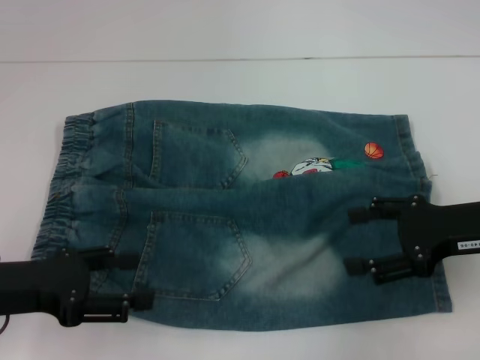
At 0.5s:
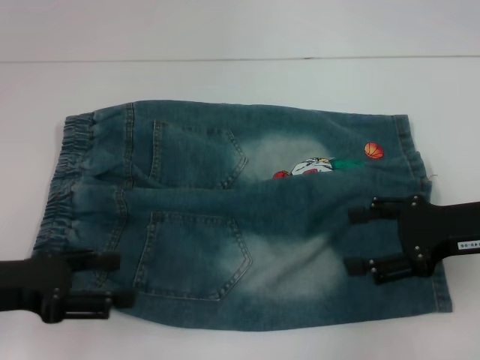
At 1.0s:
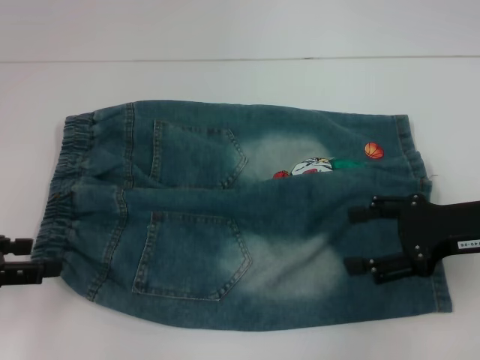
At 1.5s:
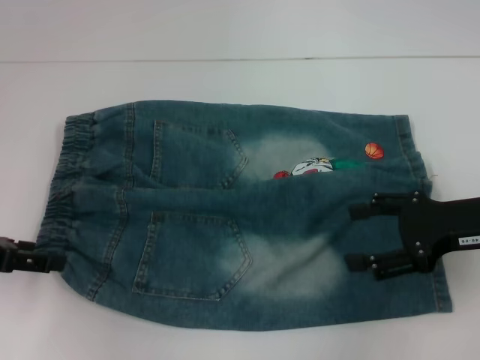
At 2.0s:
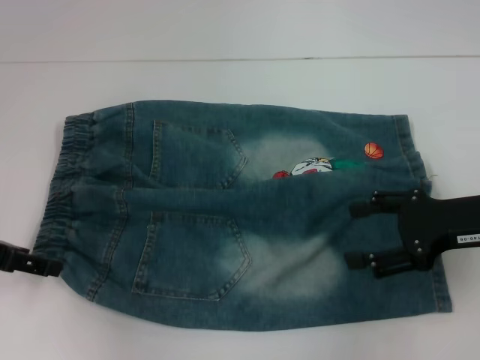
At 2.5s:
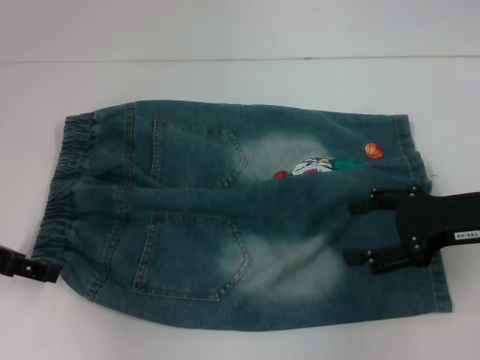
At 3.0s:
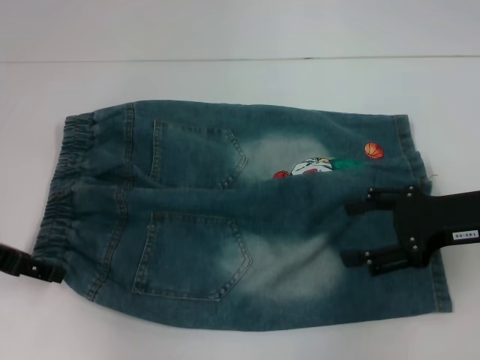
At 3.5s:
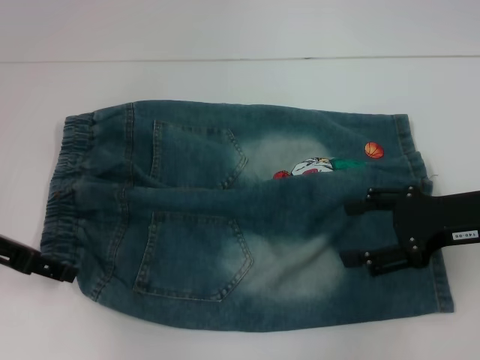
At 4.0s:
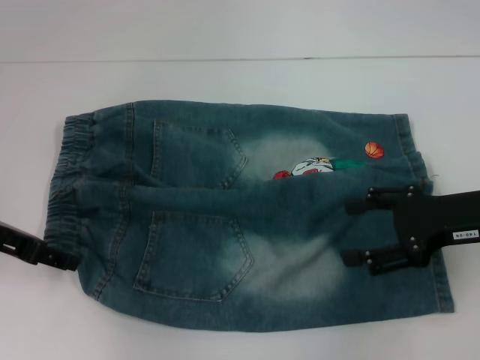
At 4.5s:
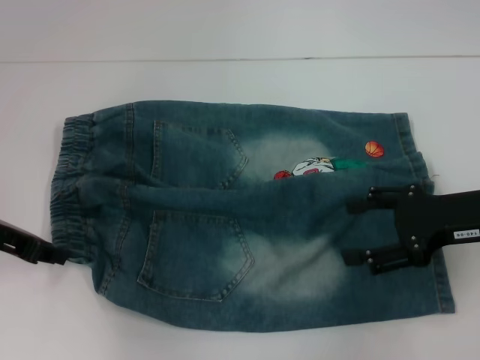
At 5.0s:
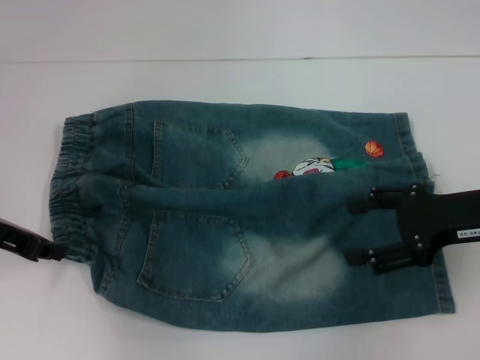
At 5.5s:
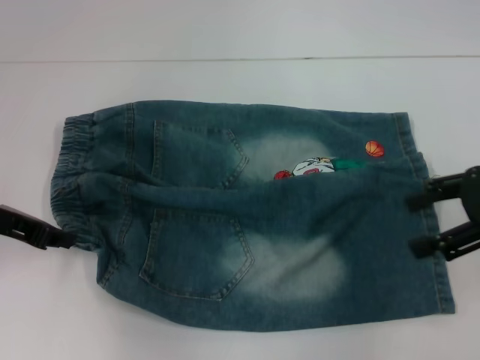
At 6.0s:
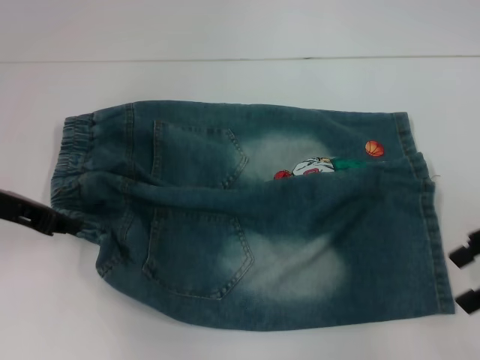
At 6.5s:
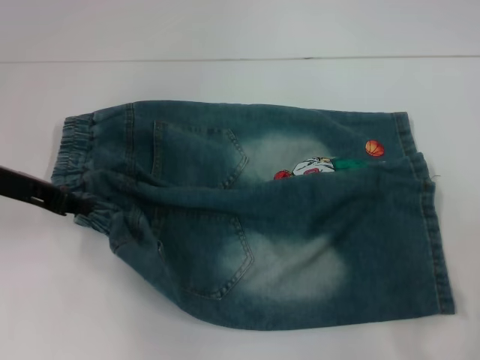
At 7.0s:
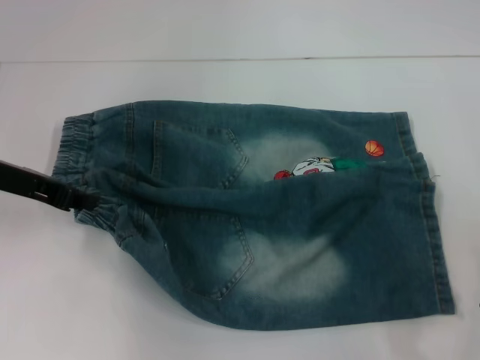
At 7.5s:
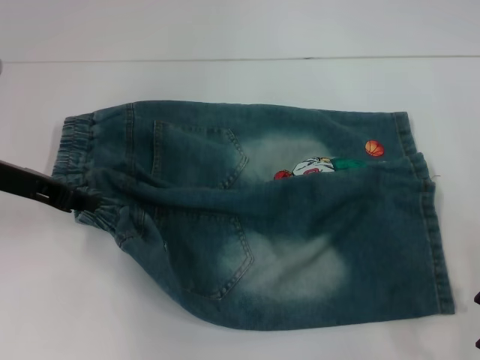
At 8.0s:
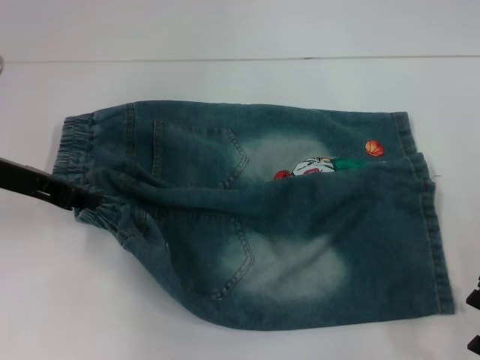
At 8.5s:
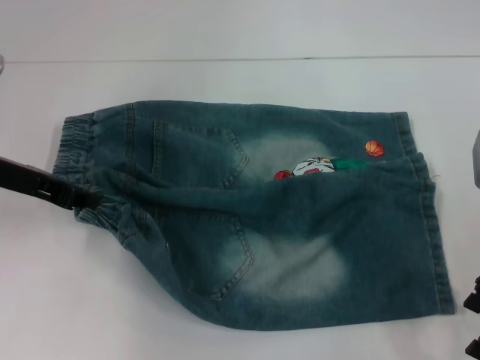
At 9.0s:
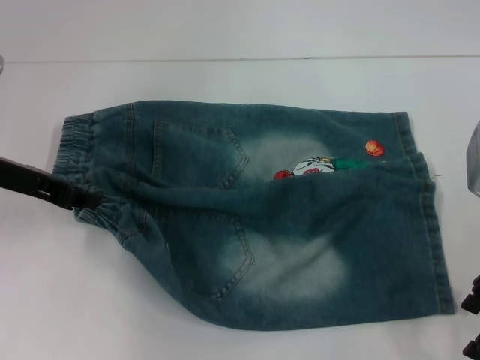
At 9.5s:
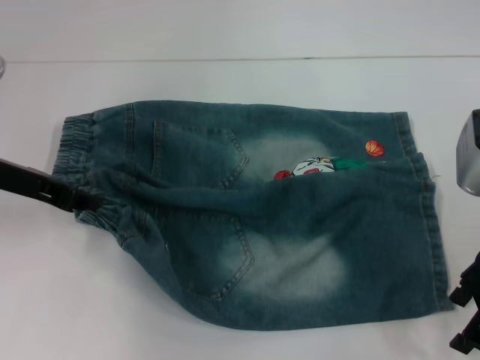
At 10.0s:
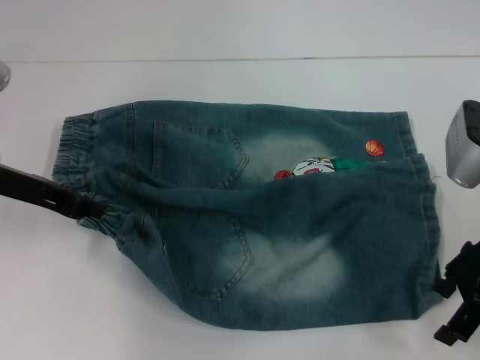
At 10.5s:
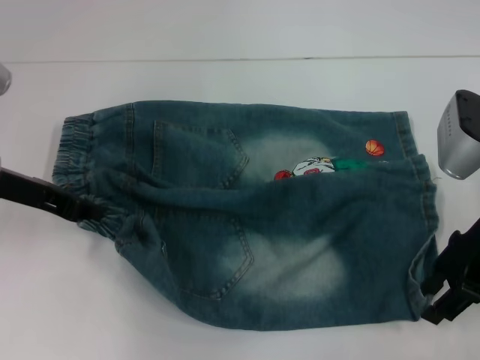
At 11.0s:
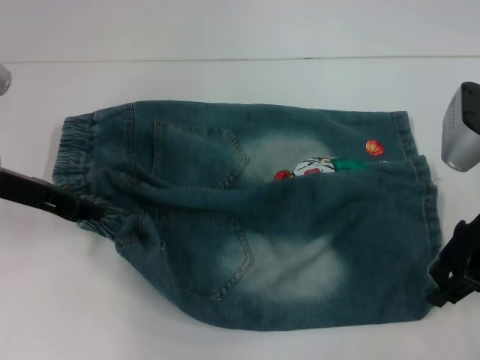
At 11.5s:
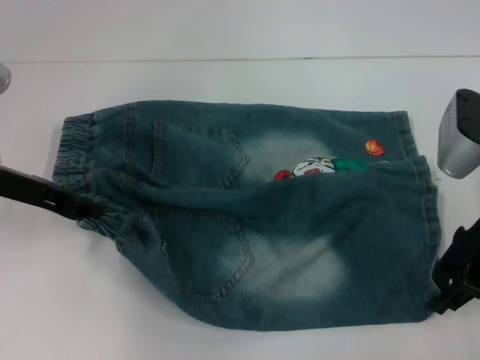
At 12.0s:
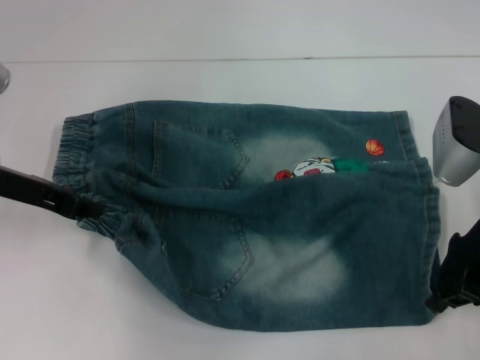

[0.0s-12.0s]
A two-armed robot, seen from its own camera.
Step, 0.0s to 4.5s: Hold the lower left waistband with your left hand.
0.0s to 2.0s: The left gripper is displaced forward by approximately 5 cm.
2.0s to 4.0s: The grippers move only a little.
4.0s to 6.0s: The left gripper closes up, while the right gripper travels upward by approximately 5 cm.
6.0s to 8.0s: The right gripper moves some 5 cm.
8.0s to 10.0s: There are only small adjustments of the grippers.
10.0s to 12.0s: The right gripper closes up.

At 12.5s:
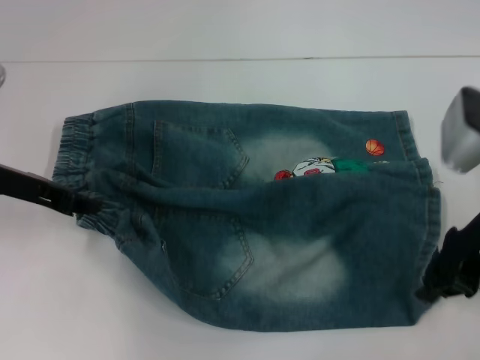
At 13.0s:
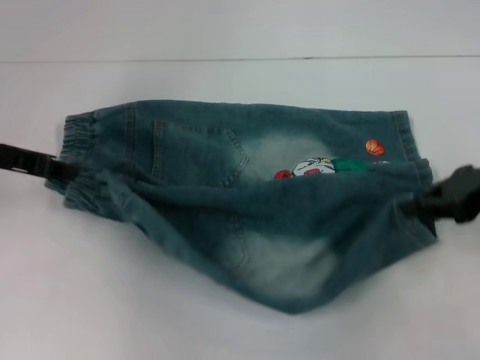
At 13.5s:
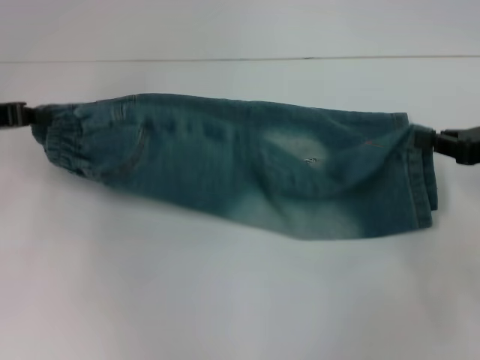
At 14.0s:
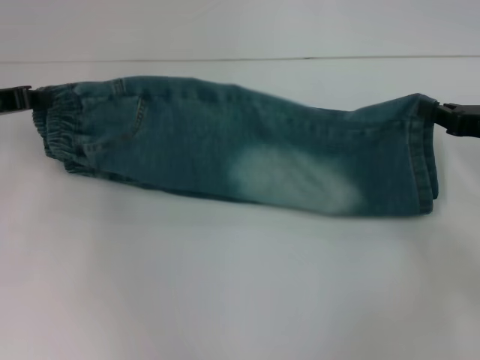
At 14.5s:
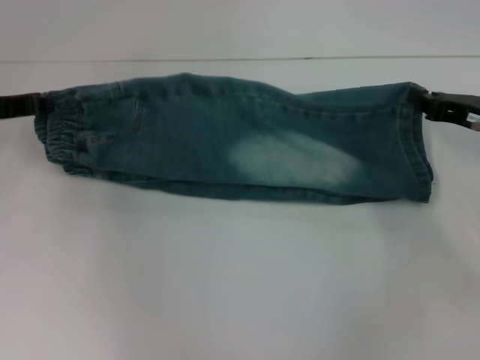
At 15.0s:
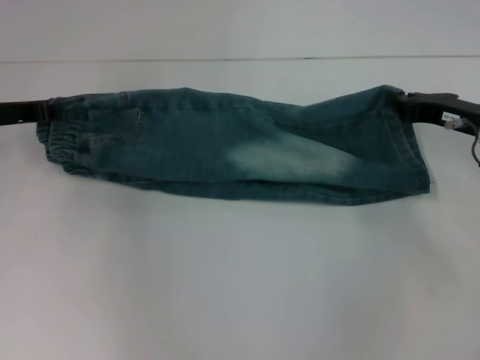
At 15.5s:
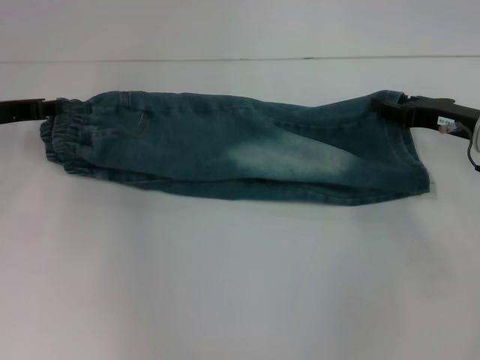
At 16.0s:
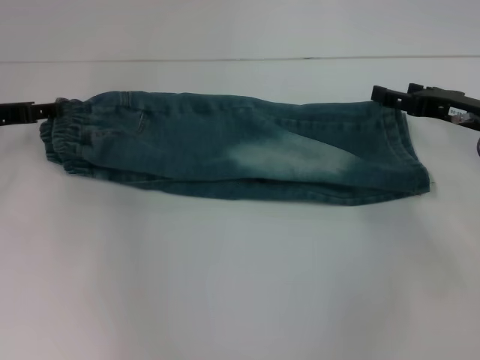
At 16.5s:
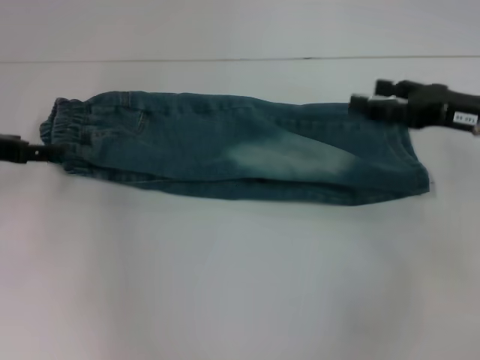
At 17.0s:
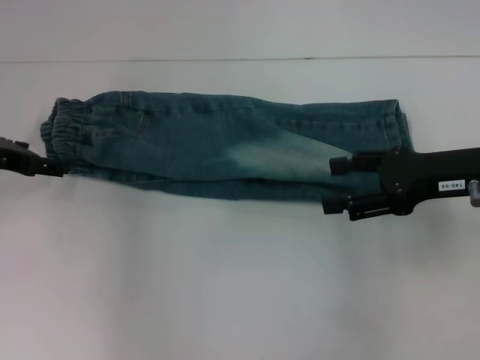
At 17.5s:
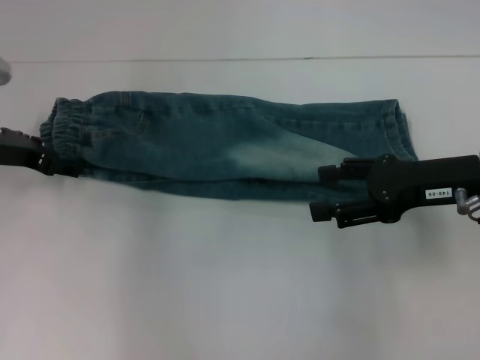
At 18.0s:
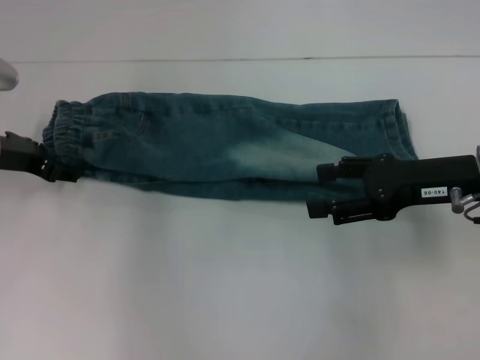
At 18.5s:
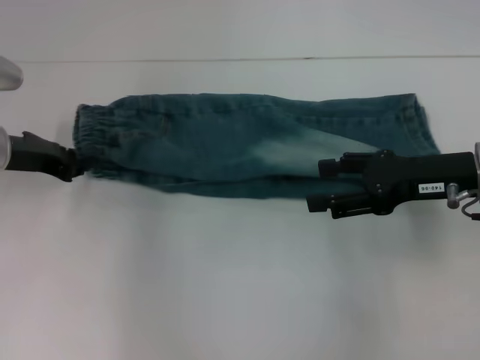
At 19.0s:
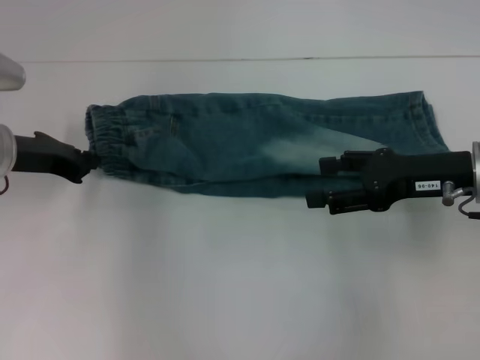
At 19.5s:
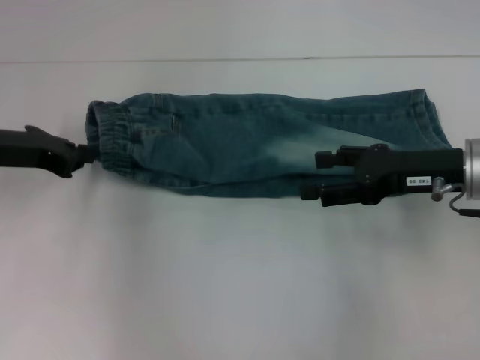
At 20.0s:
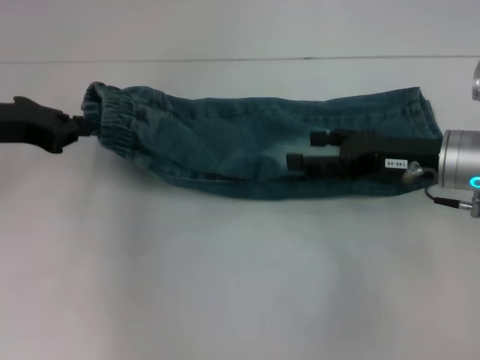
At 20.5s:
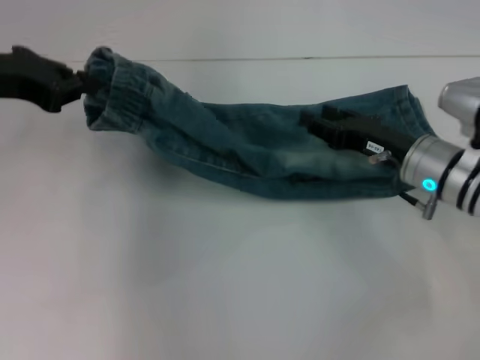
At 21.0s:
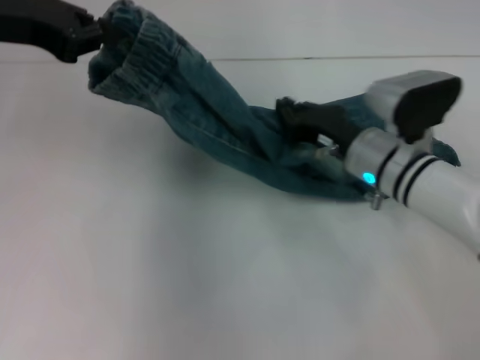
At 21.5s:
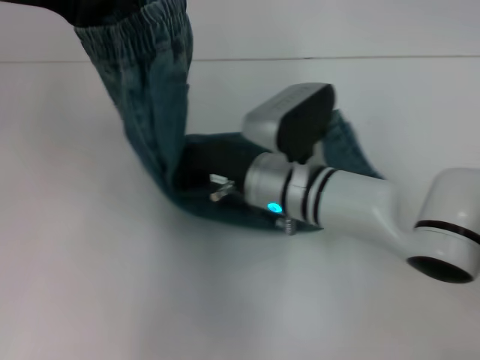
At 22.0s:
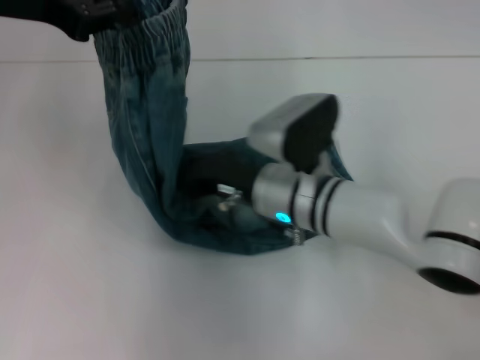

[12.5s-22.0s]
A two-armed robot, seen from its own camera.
Step, 12.5s to 15.0s: Fold upward with your left hand.
Step, 16.0s to 19.0s: Hold the waistband with your left hand.
12.5s to 14.5s: The right gripper goes roughly 5 cm to the right, while the left gripper shifts by some 5 cm.
14.5s to 16.5s: The left gripper opens, while the right gripper opens.
16.5s to 18.0s: The left gripper moves approximately 5 cm. The right gripper ends up roughly 5 cm from where it was.
18.0s to 20.0s: The left gripper shifts roughly 5 cm upward, and closes its fingers.
20.0s to 22.0s: The left gripper goes approximately 10 cm upward. Meanwhile the right gripper travels to the left by some 20 cm, and closes up.

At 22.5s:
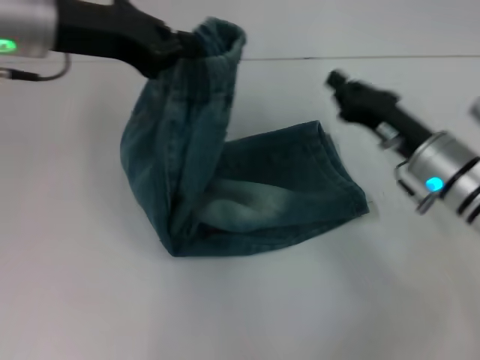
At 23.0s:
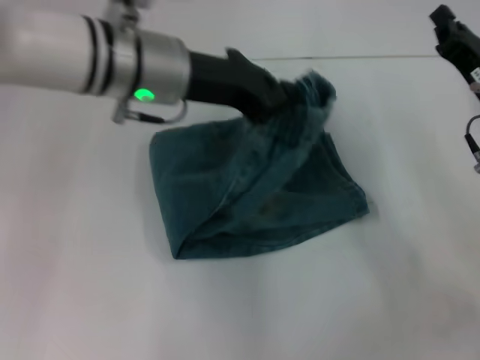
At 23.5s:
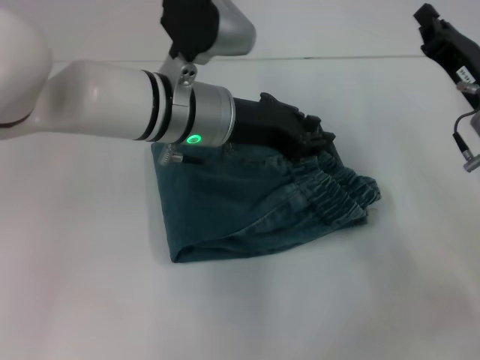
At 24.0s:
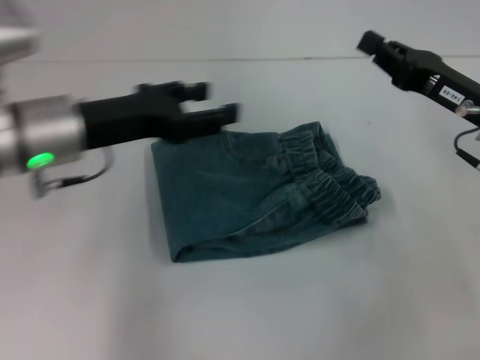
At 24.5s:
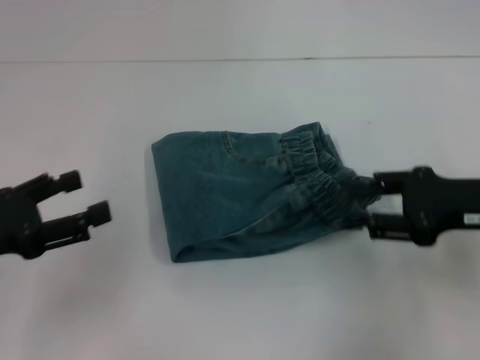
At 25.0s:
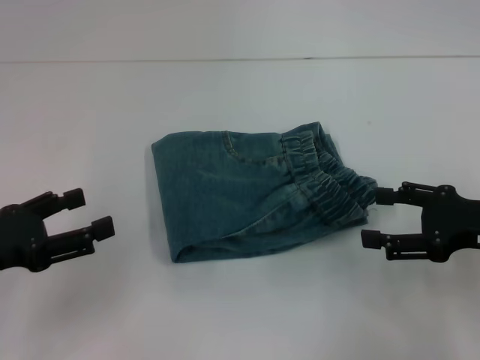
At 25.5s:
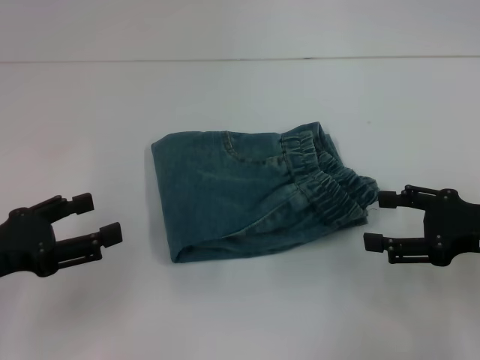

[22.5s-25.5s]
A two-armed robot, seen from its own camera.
22.5s to 24.0s: The left gripper shifts about 10 cm downward, goes to the right and returns, roughly 15 cm each way, and opens. The right gripper heads to the right and upward, covering roughly 10 cm.
24.0s to 25.5s: The right gripper heads backward, covering roughly 10 cm, and opens, while the left gripper moves backward, to the left and downward, approximately 15 cm, and opens.

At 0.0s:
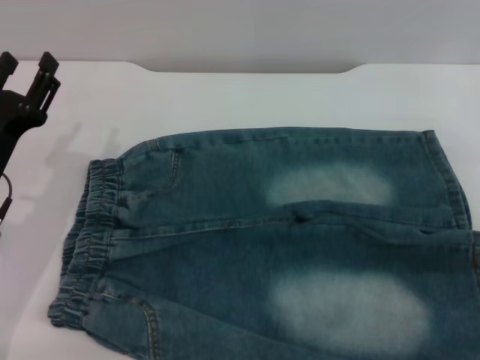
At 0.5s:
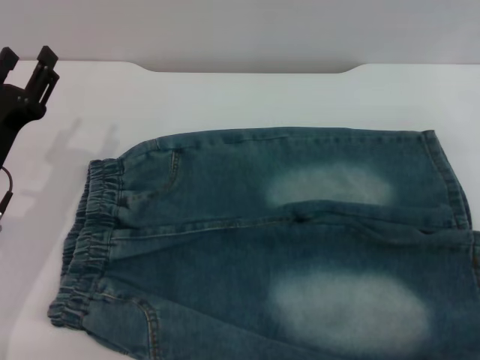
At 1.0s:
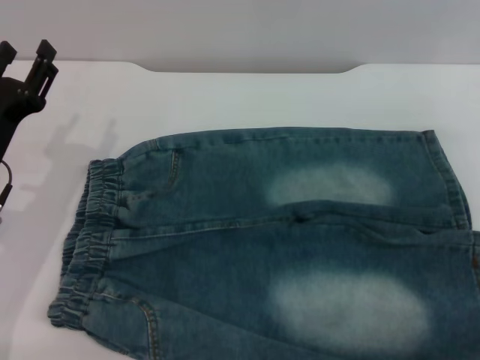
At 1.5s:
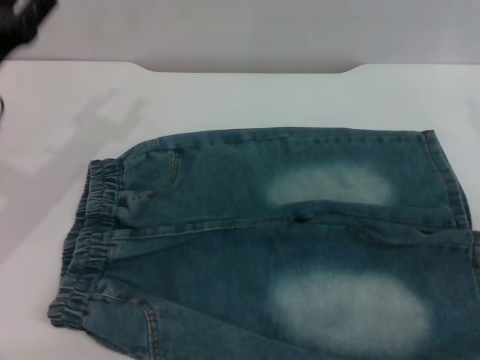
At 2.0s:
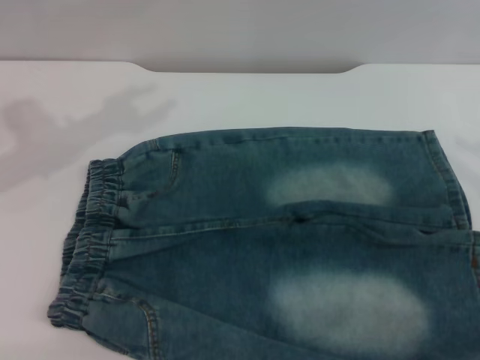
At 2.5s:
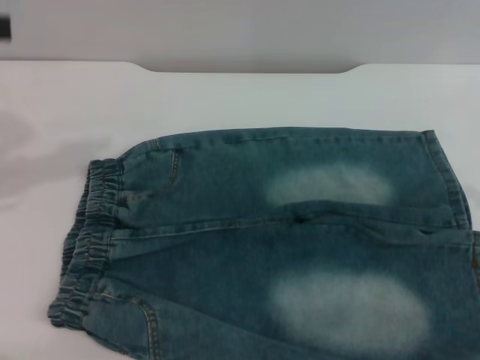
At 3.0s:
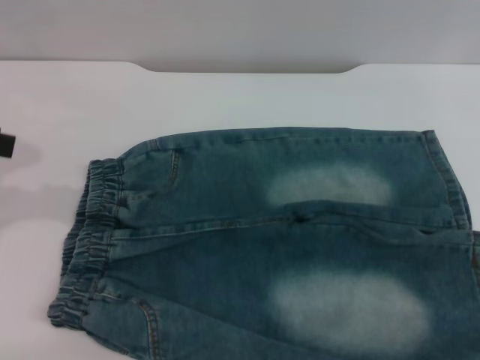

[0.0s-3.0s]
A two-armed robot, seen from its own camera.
0.0s to 1.5s: The left gripper moves upward and forward, roughly 10 cm.
1.5s to 3.0s: The left gripper shifts roughly 15 cm upward and to the left.
